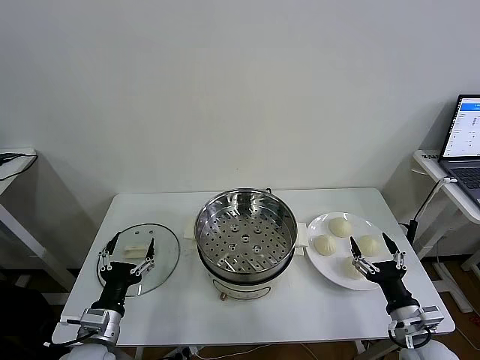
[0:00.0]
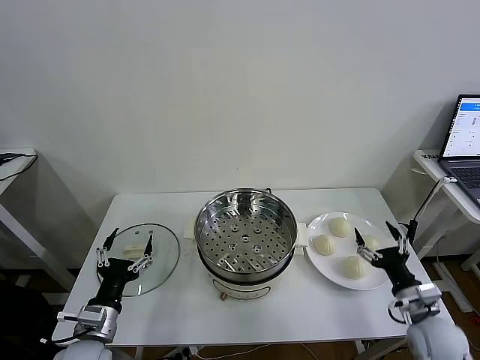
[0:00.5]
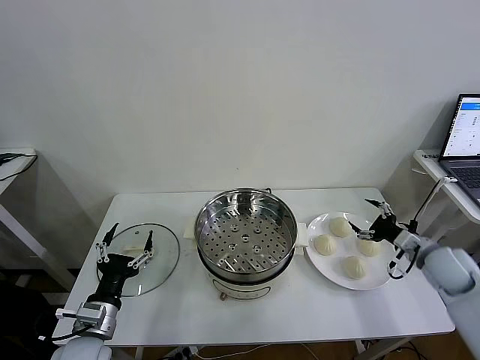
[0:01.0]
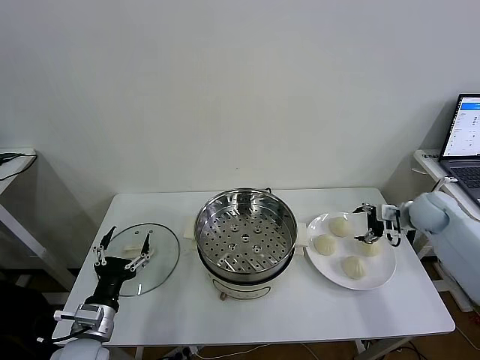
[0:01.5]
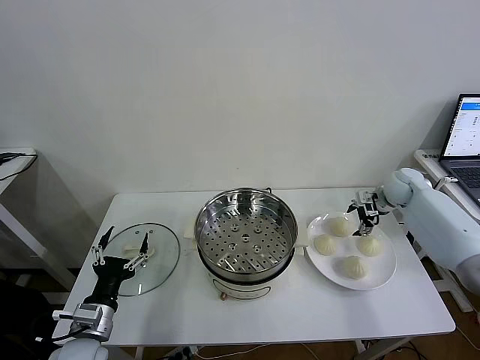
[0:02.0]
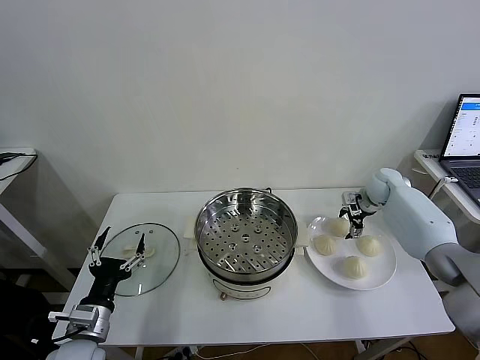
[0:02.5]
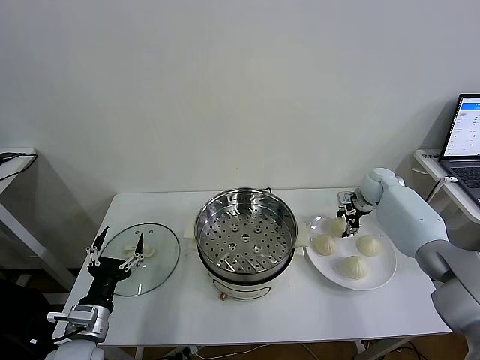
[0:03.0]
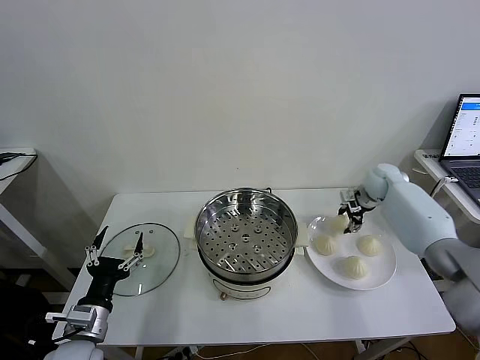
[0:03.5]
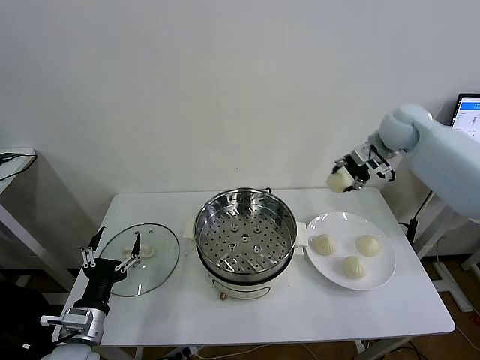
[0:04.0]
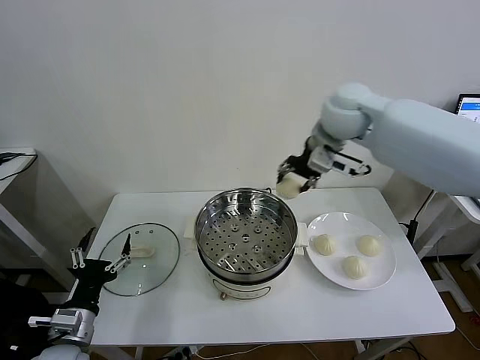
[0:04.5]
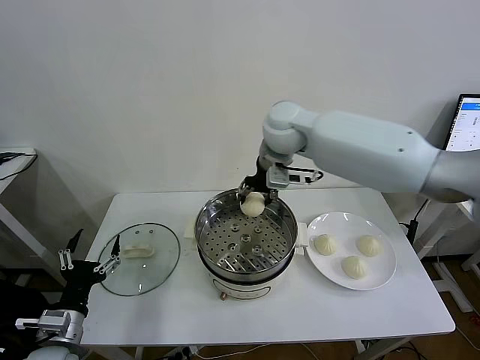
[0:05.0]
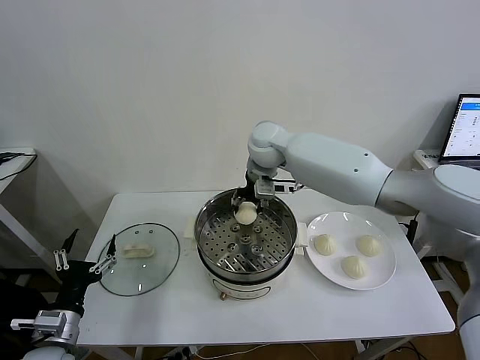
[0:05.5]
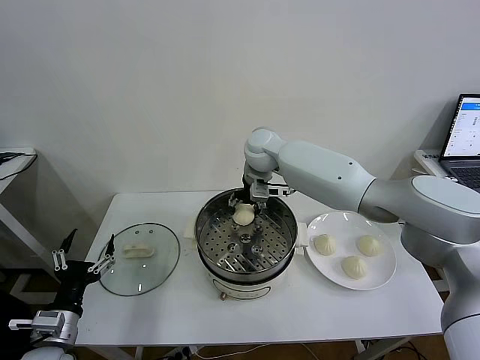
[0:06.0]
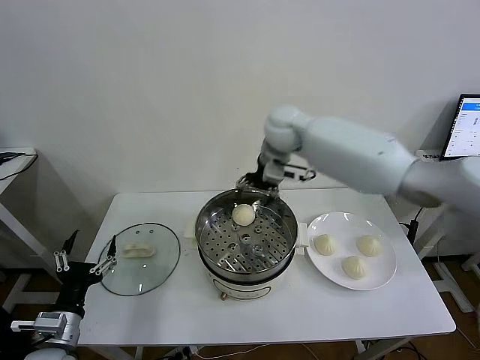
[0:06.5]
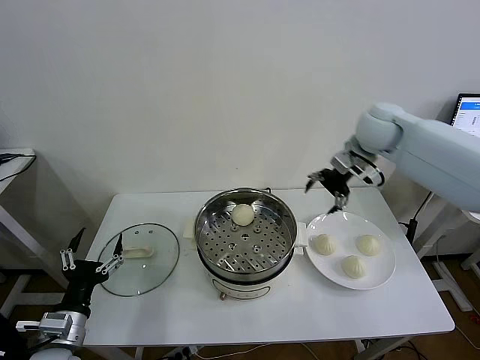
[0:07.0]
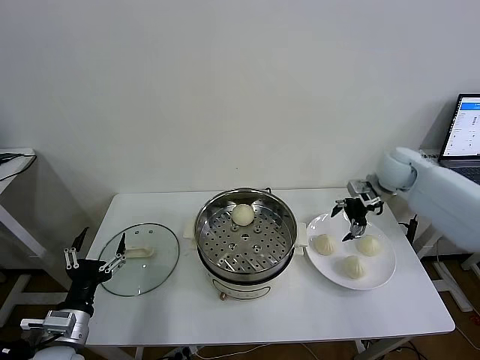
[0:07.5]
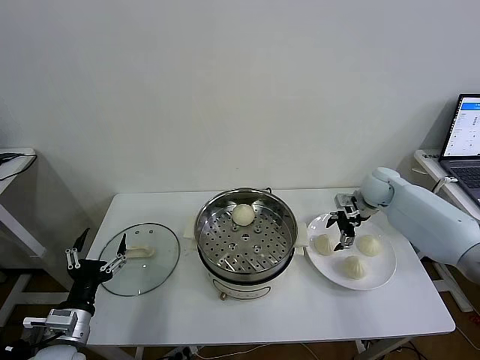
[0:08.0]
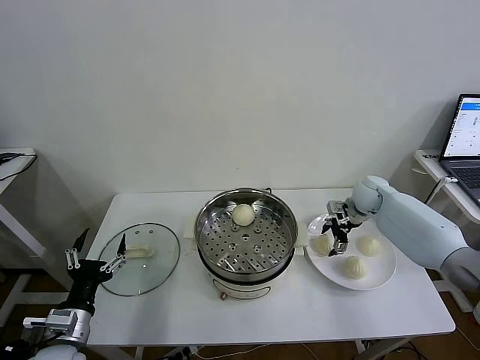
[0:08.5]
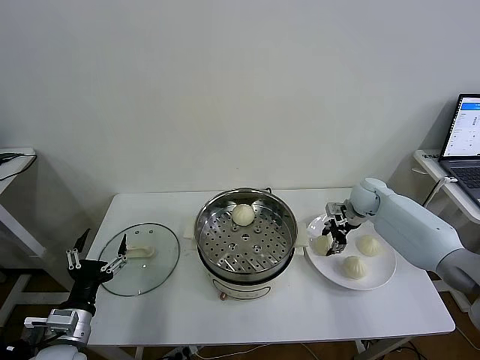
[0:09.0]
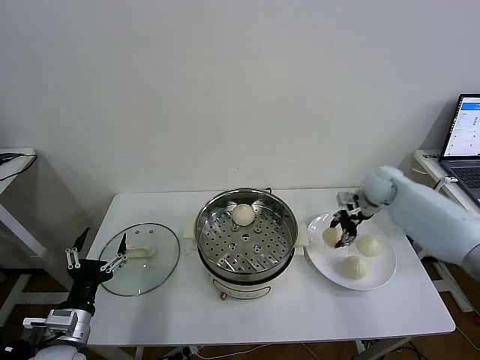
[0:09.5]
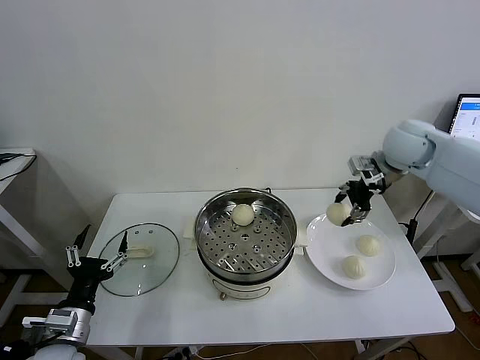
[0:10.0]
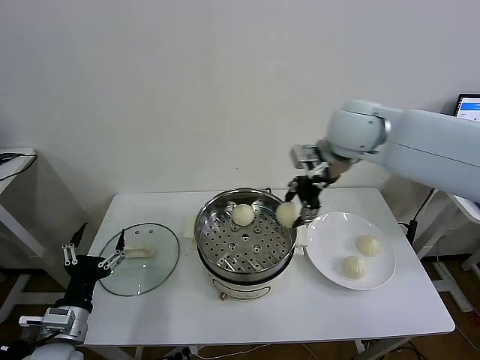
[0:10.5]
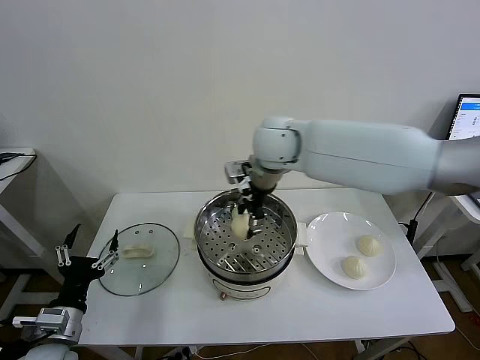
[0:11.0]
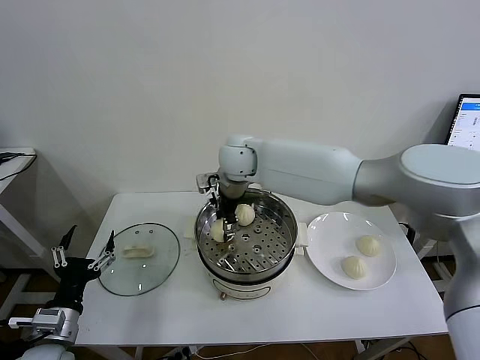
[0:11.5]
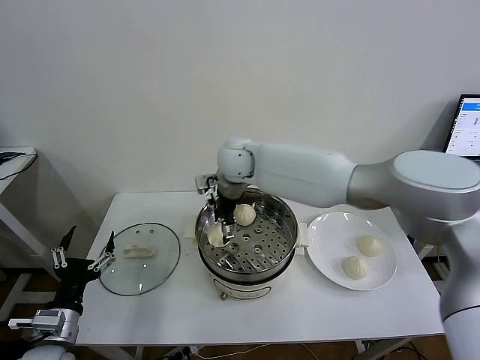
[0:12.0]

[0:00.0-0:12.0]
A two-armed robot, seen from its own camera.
Task of the whole recording: take steamed baozi put them in steamer then cover it.
Step, 0:00.0 to 0:03.0: Grasp the baozi in the plate with right gripper.
Step, 0:03.5 to 0:06.0: Place the baozi on the steamer with right gripper.
Step, 0:06.5 to 0:08.5: Grasp the baozi in the plate with right gripper.
Step, 0:09.0 to 0:11.5: Place the baozi on the steamer with right gripper.
0:02.0 to 0:04.0: The right gripper is displaced upward and to the left by approximately 25 cm, and closes its fingers.
0:04.0 to 0:06.0: The right gripper moves to the left, some 25 cm, and opens its fingers.
0:06.0 to 0:08.0: The right gripper is displaced to the right by approximately 30 cm.
0:08.0 to 0:10.0: The right gripper moves upward, roughly 20 cm, and closes its fingers.
0:10.0 to 0:12.0: The right gripper goes some 30 cm to the left, and opens its fingers.

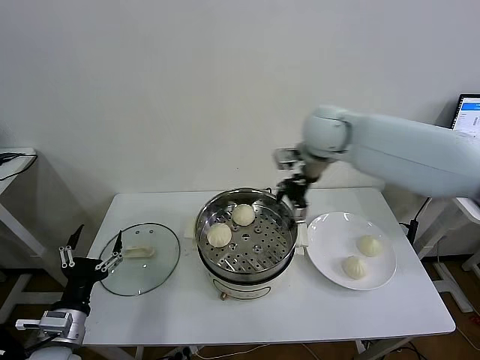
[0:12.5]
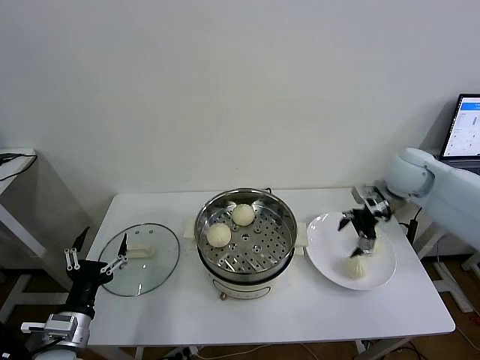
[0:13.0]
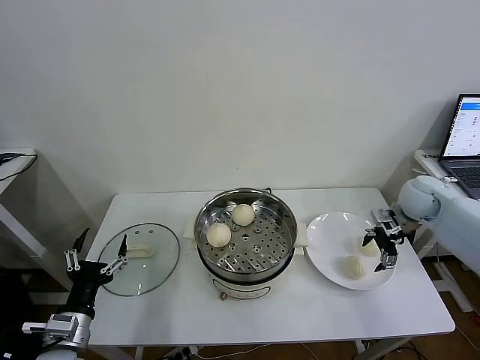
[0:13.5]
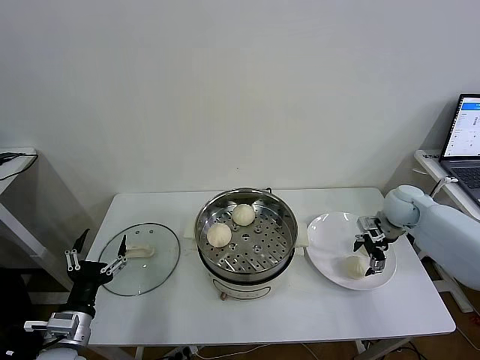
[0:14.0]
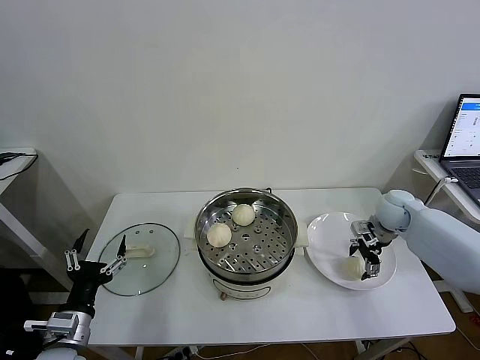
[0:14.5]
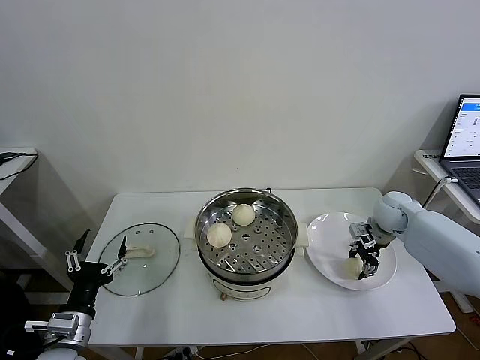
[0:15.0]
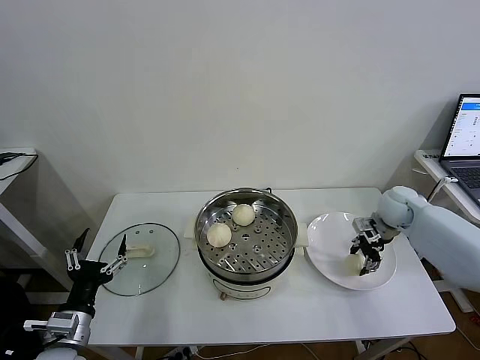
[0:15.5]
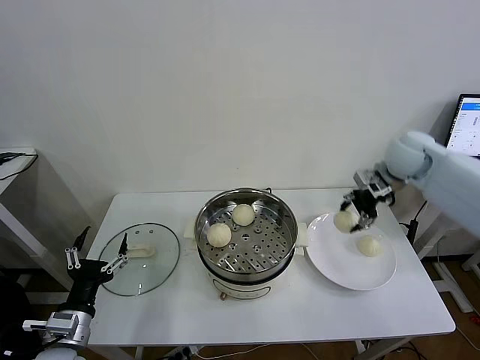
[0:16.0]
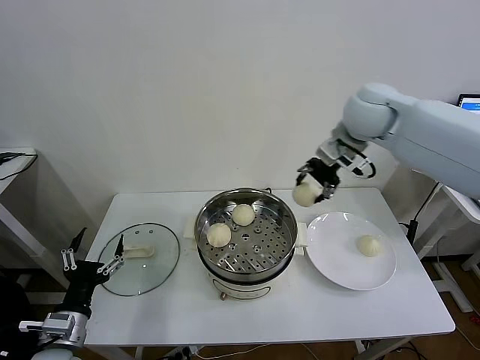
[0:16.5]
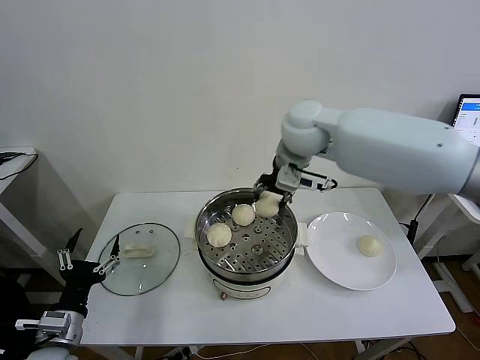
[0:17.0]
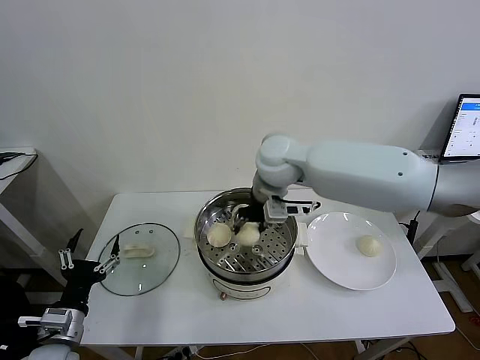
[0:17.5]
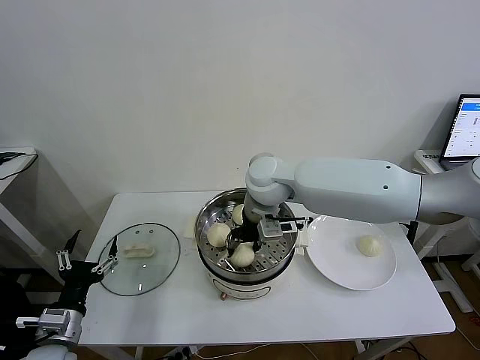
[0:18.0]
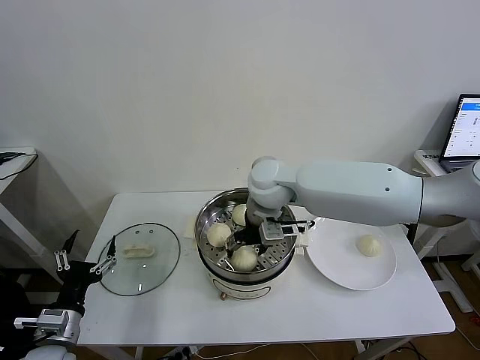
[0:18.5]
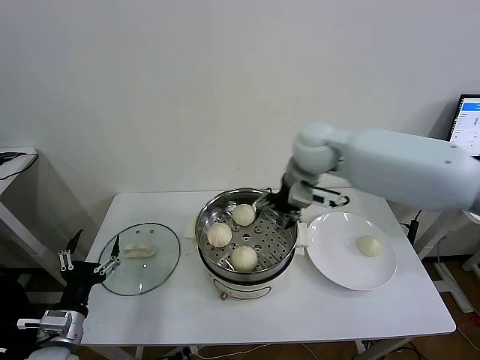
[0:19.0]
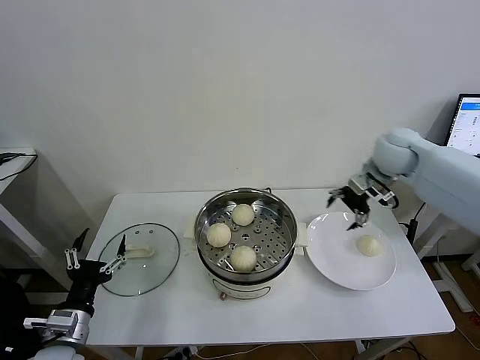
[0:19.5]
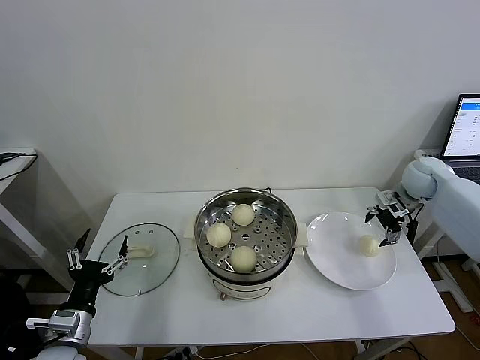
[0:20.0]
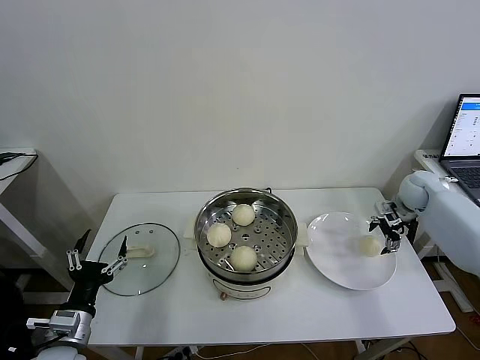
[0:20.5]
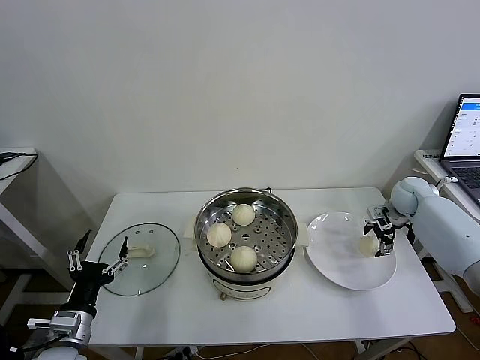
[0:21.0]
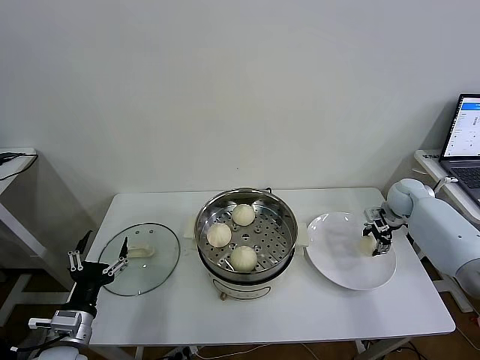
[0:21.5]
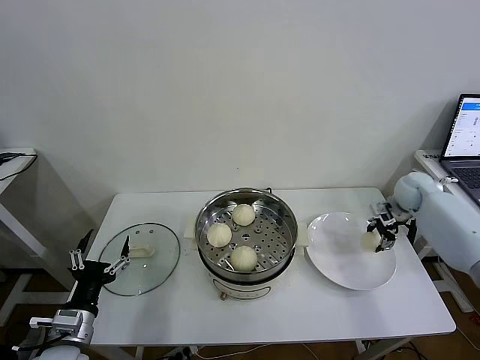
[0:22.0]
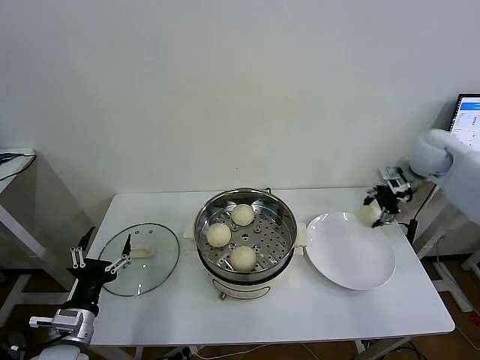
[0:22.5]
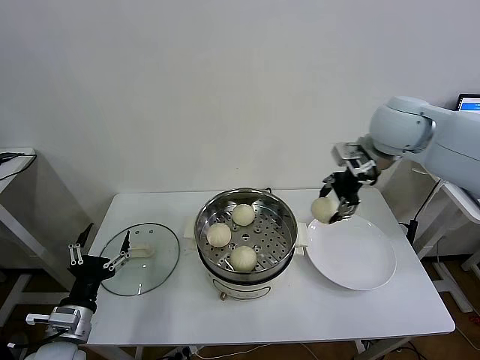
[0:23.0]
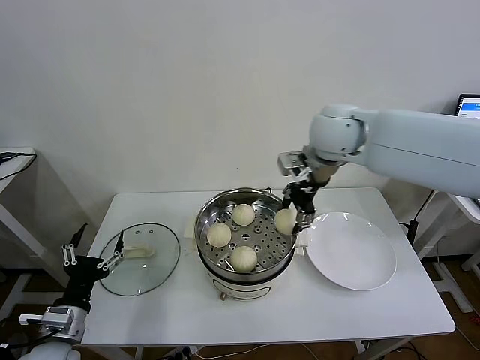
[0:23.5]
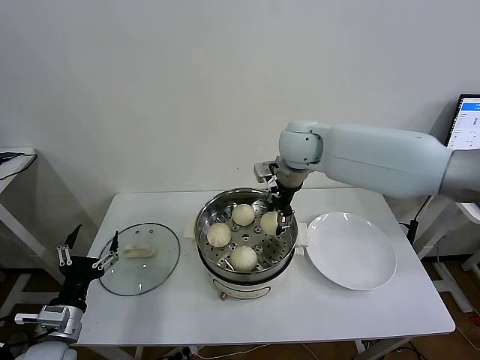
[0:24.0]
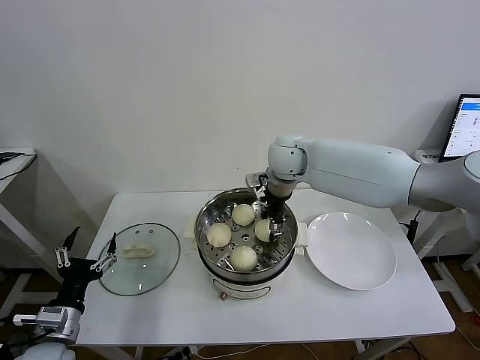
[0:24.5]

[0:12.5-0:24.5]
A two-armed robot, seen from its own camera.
Task of the whole recording: take steamed baozi put them in steamer then cover it.
Step, 0:12.5 to 0:15.0: Grasp the baozi in the plate with right gripper.
Step, 0:15.5 to 0:18.5: Place the baozi on the steamer with right gripper.
Step, 0:19.0 to 0:21.5: Grasp the baozi in the plate with right gripper.
0:12.5 to 0:14.5: The right gripper is displaced downward and to the right by some 30 cm.
0:14.5 to 0:16.5: The right gripper goes roughly 30 cm upward and to the left, and closes up.
0:16.5 to 0:18.5: The right gripper travels to the left and downward by some 20 cm, and opens up.
0:18.5 to 0:20.5: The right gripper travels to the right by some 40 cm.
0:20.5 to 0:22.5: The right gripper is displaced upward by some 15 cm, and closes its fingers.
0:22.5 to 0:24.5: The right gripper heads to the left, covering some 30 cm.

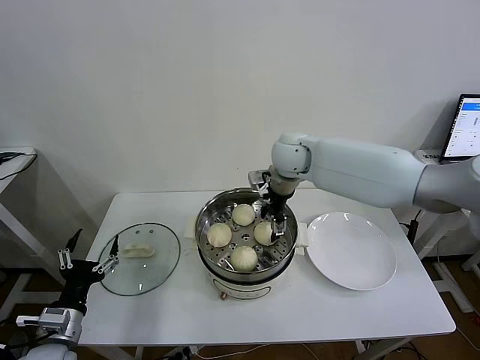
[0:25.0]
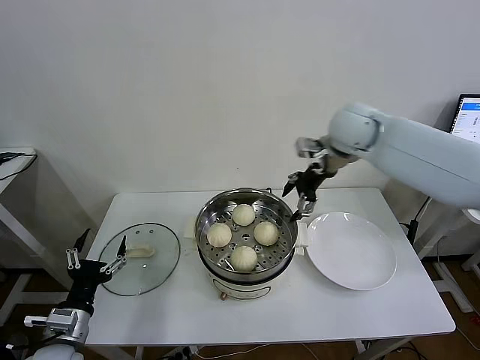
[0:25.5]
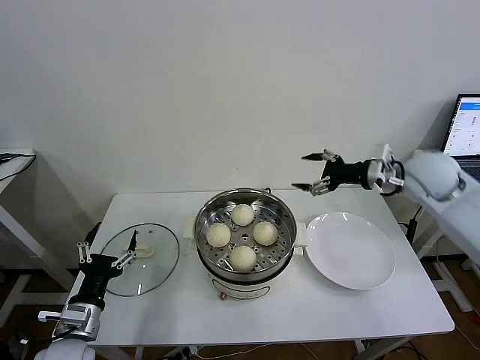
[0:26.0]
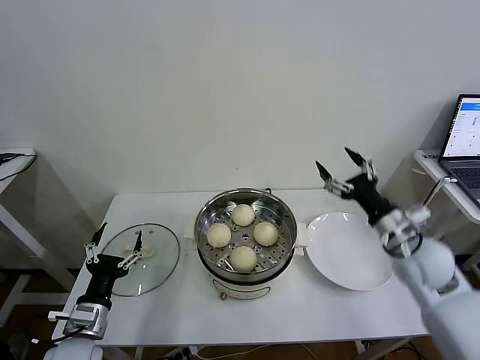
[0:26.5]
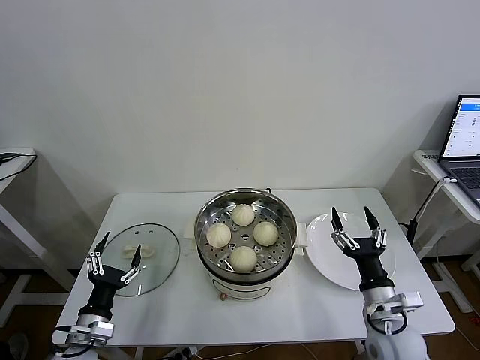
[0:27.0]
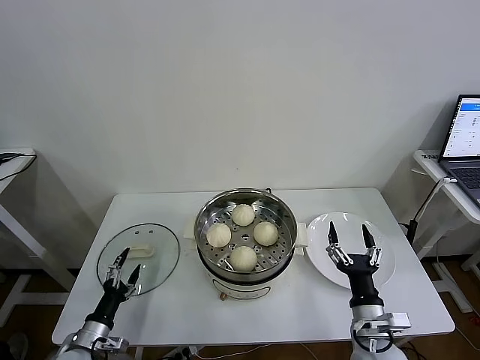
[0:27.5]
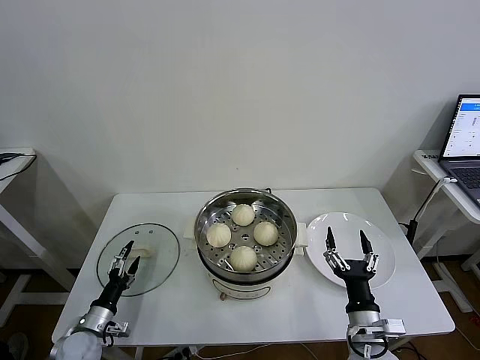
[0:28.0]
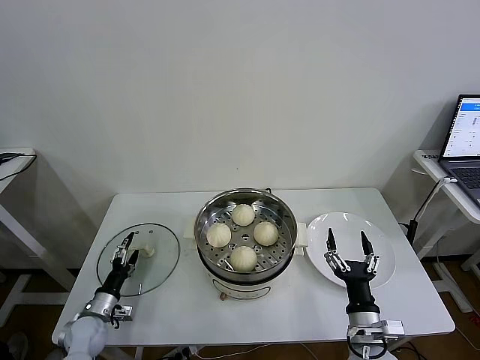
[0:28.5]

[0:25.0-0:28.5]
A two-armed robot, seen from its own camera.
Task of the whole recording: take steamed baozi put them in steamer then cover it.
0:25.0 to 0:27.0: The left gripper moves downward, roughly 5 cm. Meanwhile the right gripper moves backward, downward and to the right, approximately 40 cm.
0:27.0 to 0:28.5: The right gripper changes place by about 5 cm; the left gripper is displaced downward, forward and to the left by approximately 15 cm.
